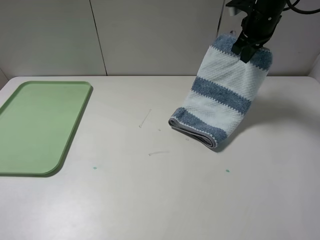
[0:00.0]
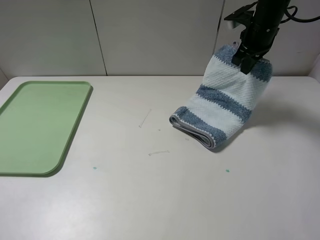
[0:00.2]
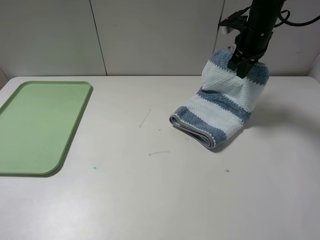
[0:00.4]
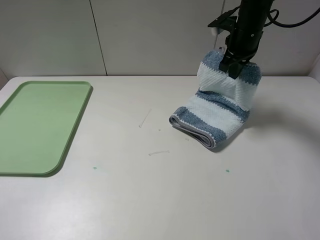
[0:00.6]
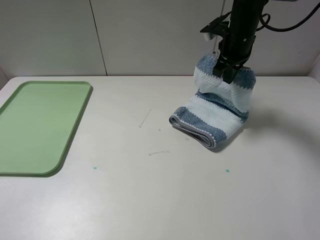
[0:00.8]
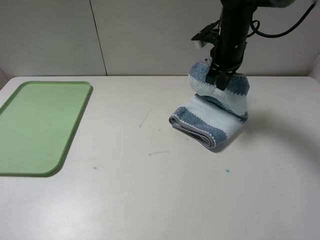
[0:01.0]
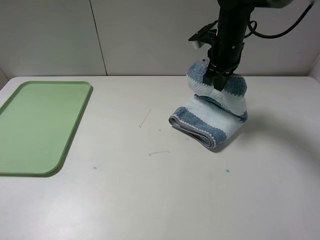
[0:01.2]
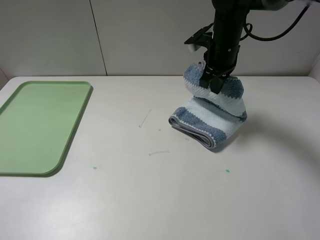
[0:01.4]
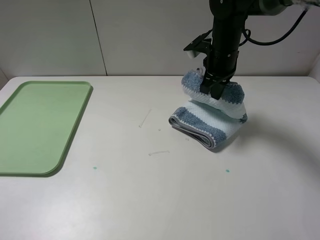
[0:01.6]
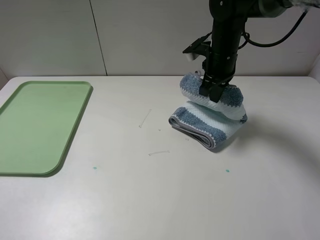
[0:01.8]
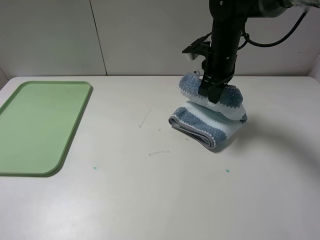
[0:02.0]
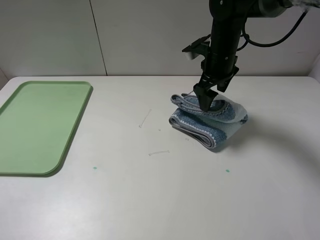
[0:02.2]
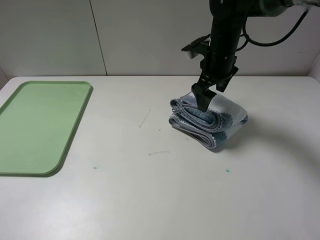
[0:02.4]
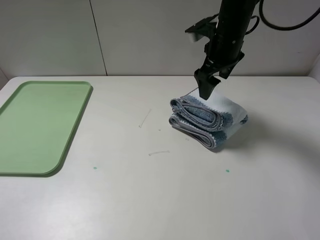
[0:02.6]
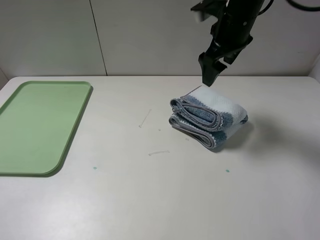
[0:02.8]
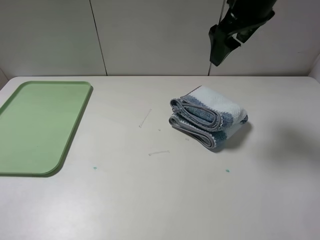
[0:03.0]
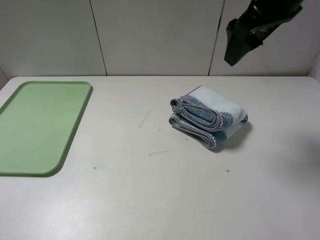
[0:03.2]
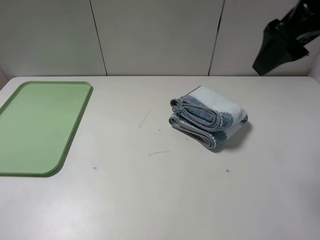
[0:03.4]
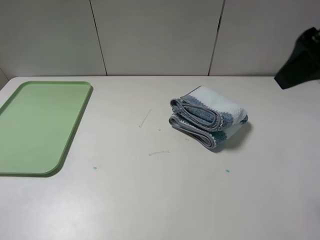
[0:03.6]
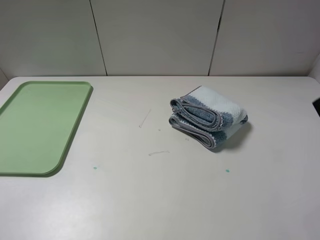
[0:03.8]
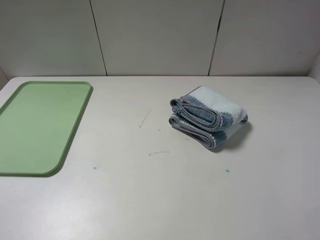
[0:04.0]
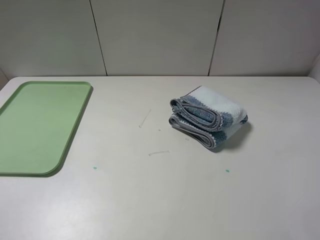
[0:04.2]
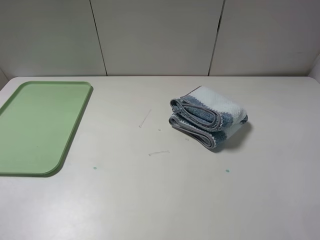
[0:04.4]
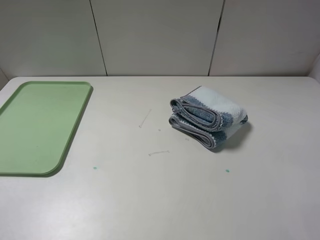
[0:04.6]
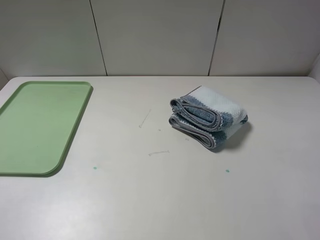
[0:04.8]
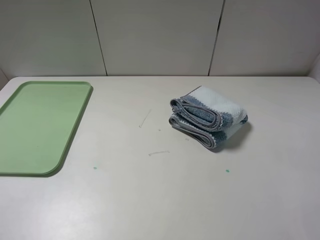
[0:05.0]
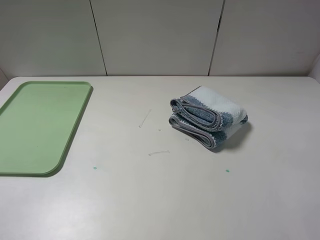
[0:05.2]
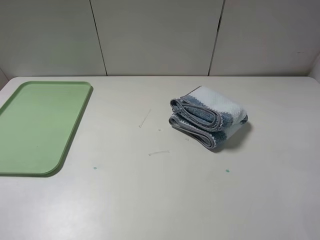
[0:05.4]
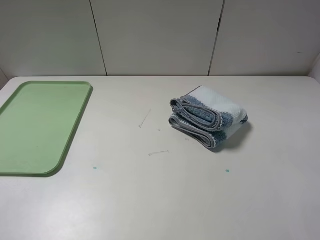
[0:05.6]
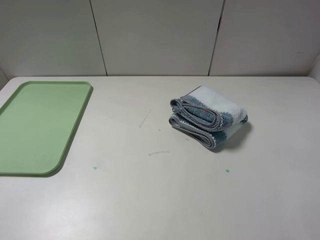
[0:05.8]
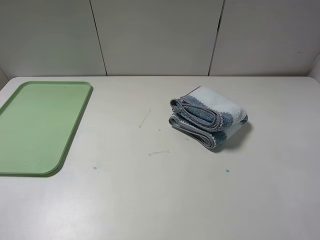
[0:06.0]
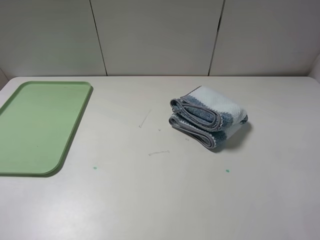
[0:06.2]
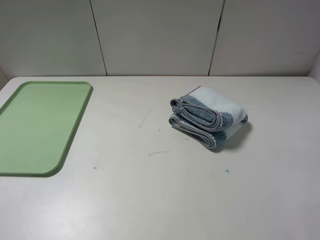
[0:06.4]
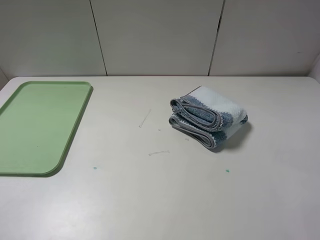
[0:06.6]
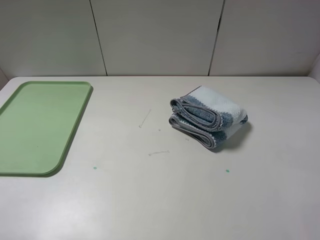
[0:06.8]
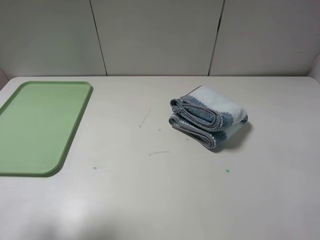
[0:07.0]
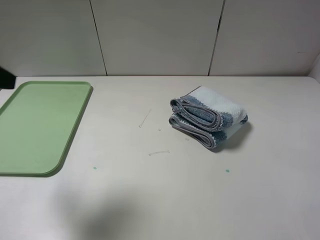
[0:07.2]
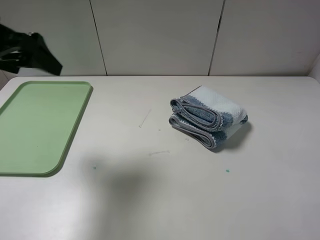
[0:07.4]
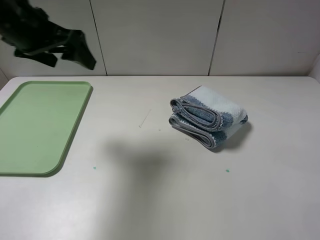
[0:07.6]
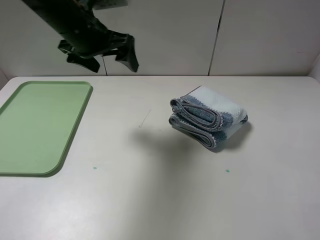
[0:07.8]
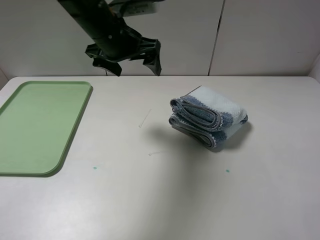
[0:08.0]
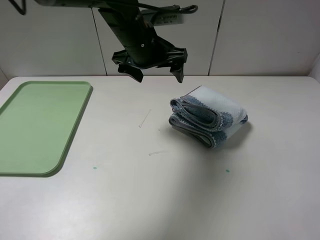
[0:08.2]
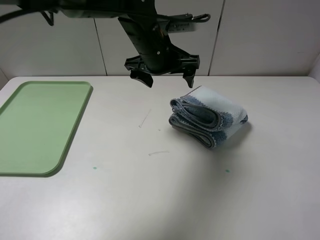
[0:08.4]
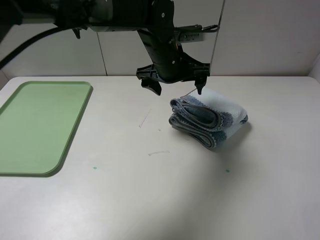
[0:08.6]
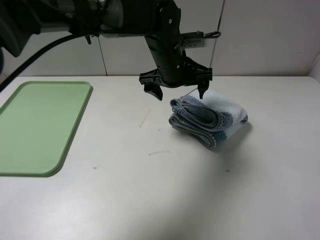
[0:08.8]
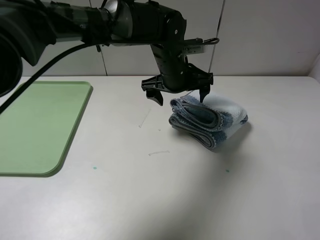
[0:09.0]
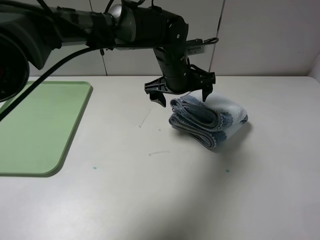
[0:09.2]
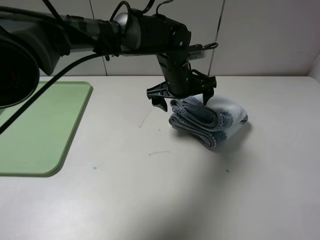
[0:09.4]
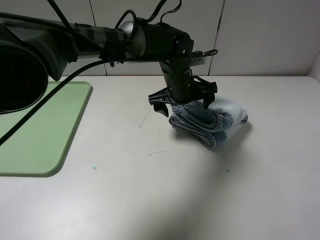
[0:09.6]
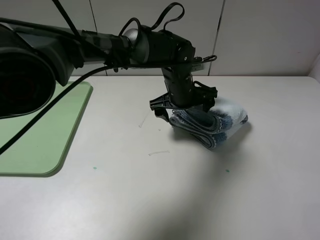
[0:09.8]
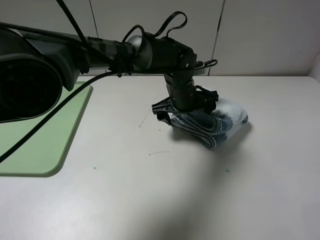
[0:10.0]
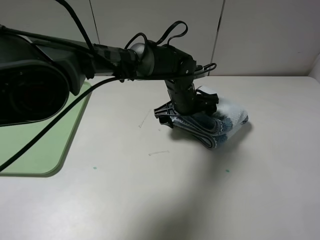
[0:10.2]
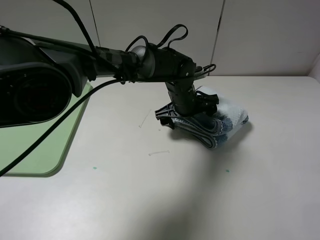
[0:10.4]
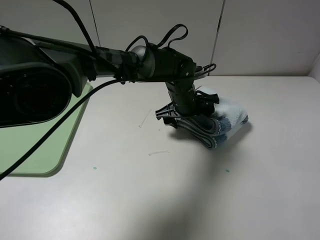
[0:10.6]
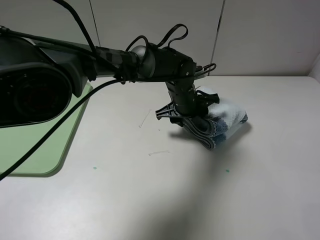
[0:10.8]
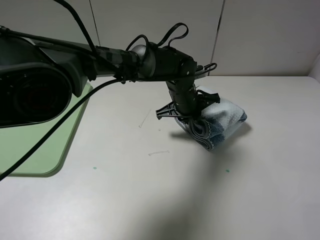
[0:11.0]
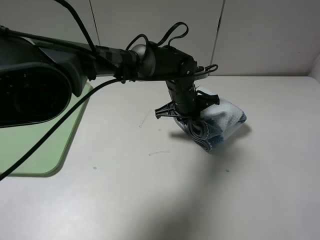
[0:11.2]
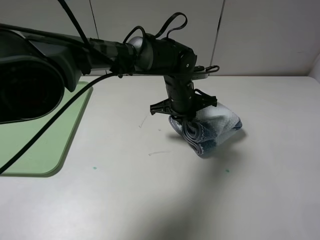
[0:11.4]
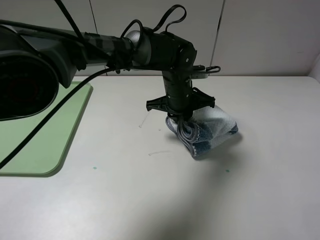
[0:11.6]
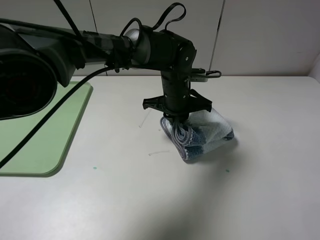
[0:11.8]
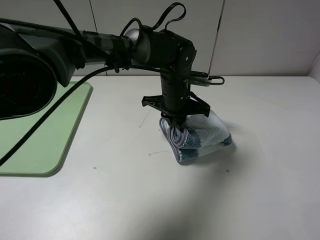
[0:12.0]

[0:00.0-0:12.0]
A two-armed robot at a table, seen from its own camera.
Step, 0:00.0 to 0:03.2: Fold the blue white towel from right to left with right gripper.
0:00.0 to 0:01.6: The right gripper is displaced to the left, backward and downward by some 10 cm.
0:01.6 to 0:03.0: The right gripper travels upward and backward by approximately 15 cm, and opens its fingers.
0:03.0 to 0:04.4: The right gripper heads backward and to the right, covering some 35 cm.
0:06.0 to 0:07.6: The left gripper heads forward and to the right, covering roughly 35 cm.
0:07.6 to 0:09.0: The left gripper is displaced to the right and downward by approximately 25 cm.
0:09.0 to 0:10.4: The left gripper shifts about 10 cm downward.
0:10.4 to 0:12.0: The left gripper closes up.

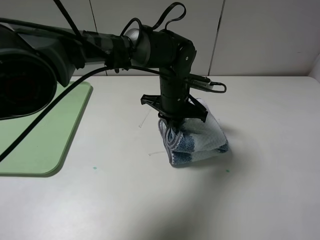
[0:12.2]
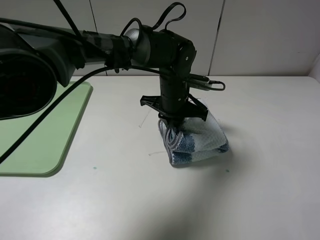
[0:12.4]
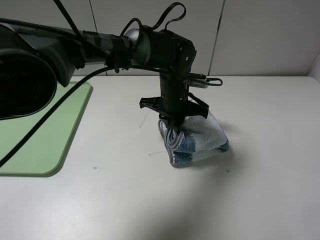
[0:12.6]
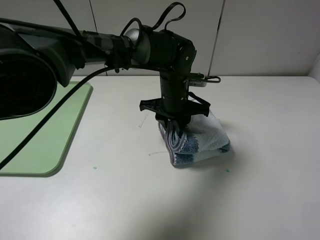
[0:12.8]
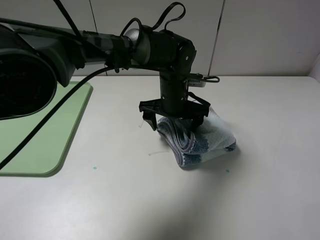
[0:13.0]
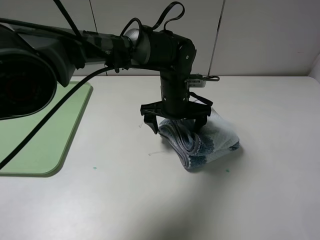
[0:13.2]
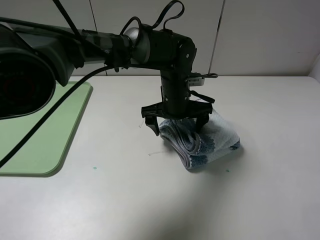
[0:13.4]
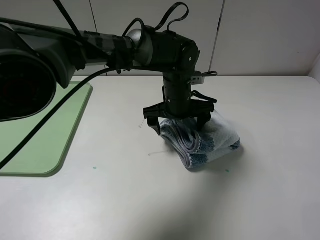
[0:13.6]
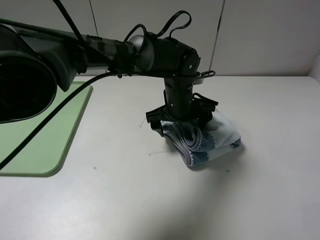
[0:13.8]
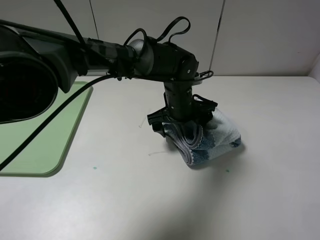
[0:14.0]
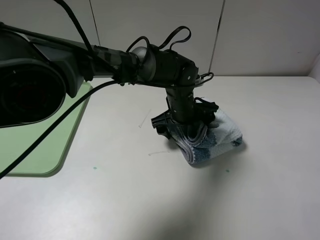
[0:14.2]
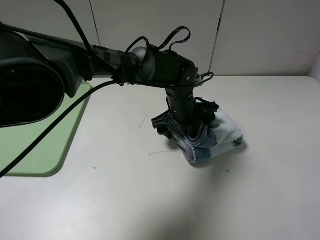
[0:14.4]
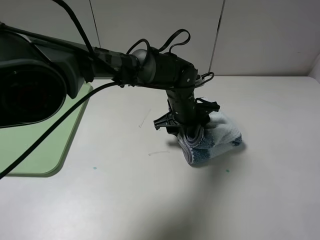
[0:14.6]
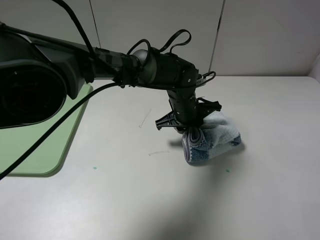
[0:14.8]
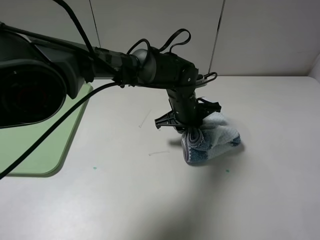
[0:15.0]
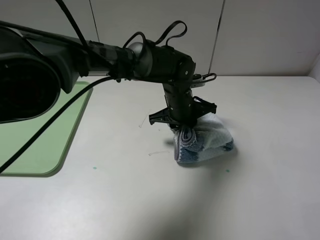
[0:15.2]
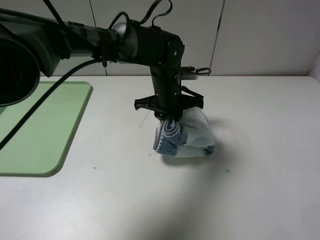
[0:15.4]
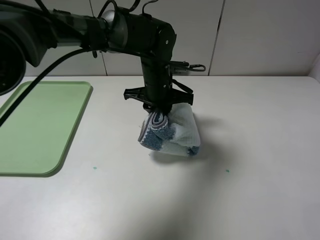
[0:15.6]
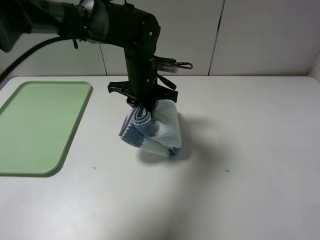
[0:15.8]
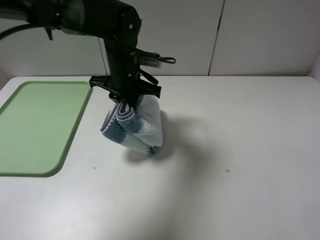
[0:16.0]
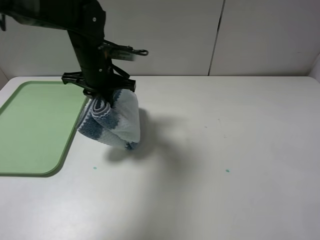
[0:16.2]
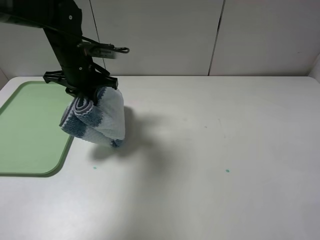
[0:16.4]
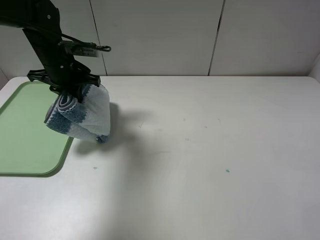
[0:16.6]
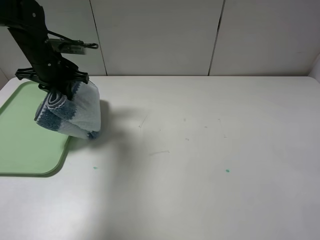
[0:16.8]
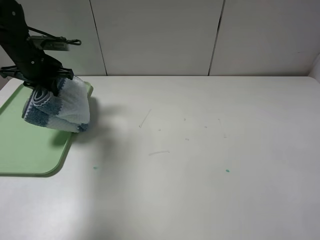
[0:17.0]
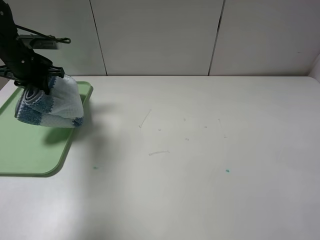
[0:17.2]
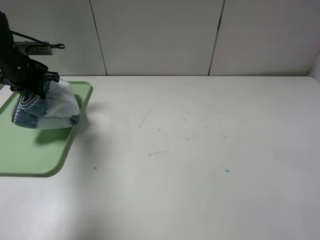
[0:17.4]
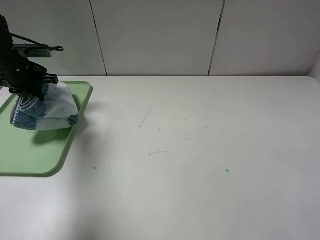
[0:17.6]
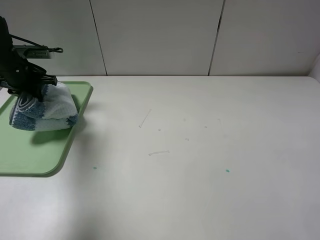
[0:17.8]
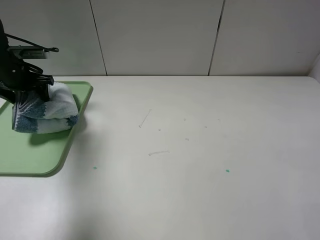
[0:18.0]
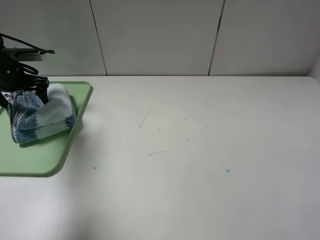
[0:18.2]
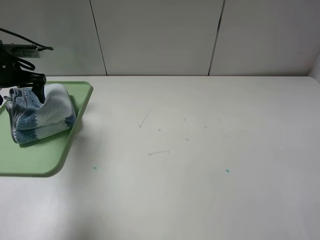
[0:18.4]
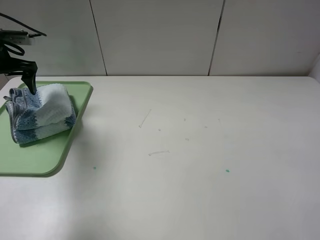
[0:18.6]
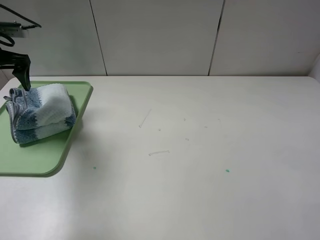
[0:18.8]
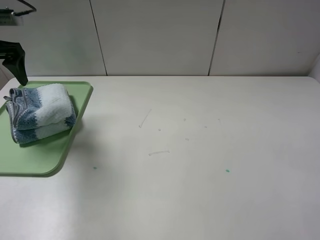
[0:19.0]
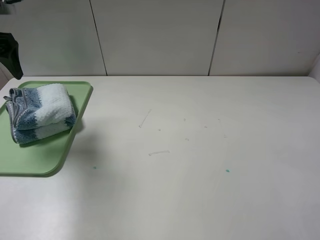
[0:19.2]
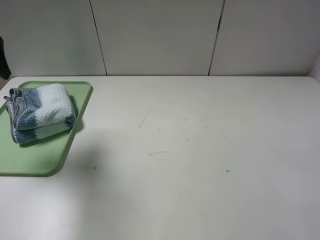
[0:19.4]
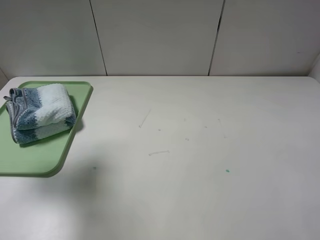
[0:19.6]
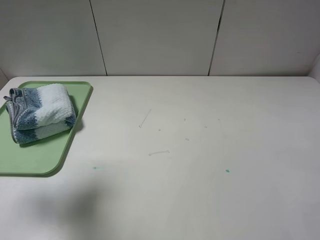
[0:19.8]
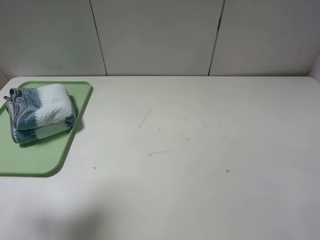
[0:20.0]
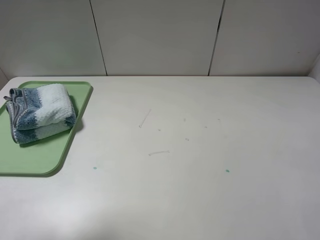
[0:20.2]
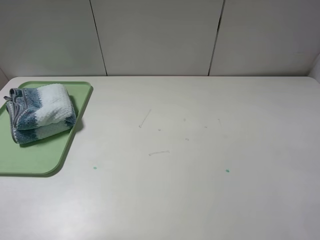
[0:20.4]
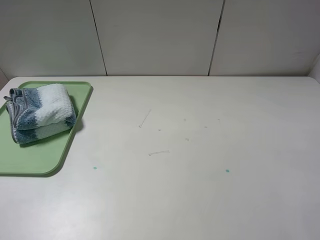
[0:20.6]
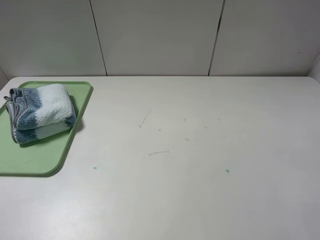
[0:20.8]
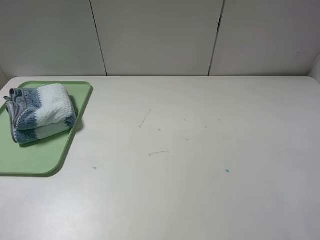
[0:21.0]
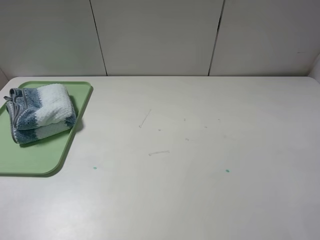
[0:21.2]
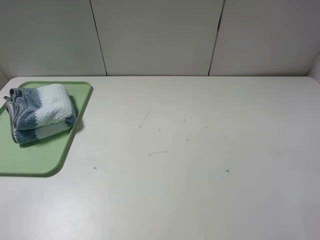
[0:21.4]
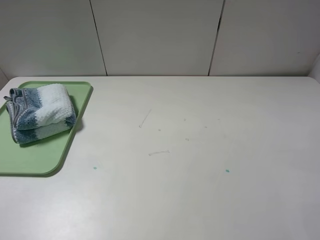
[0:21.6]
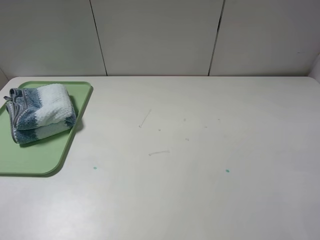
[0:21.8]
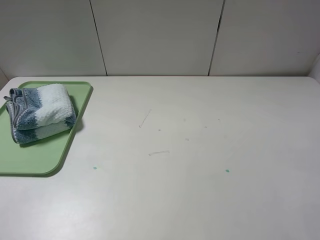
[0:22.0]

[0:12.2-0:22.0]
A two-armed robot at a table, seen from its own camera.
Step, 0:12.2 to 0:15.0: Grasp the blue white towel with the left gripper.
0:12.2 to 0:13.6: The left gripper opens up.
0:13.6 to 0:15.0: The left gripper closes its fingers.
0:15.0 to 0:16.4: The left gripper shifts some 25 cm to the left.
0:16.4 to 0:17.8: The left gripper heads to the left, covering approximately 15 cm.
0:17.8 to 0:19.2: The left gripper is displaced upward and backward by some 15 cm, and opens its fingers.
0:19.2 to 0:20.6: The left gripper goes some 30 cm backward.
